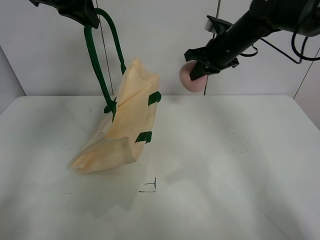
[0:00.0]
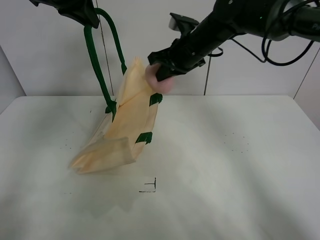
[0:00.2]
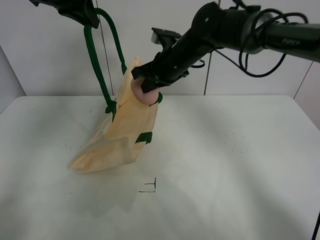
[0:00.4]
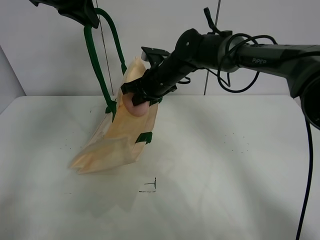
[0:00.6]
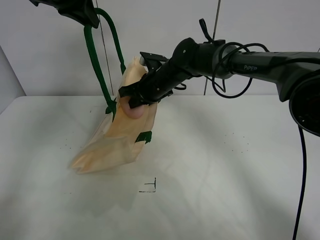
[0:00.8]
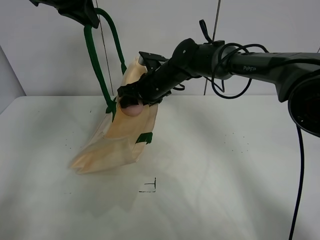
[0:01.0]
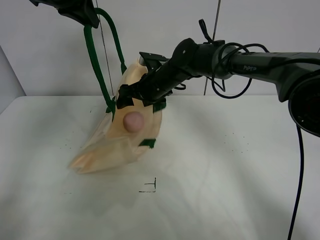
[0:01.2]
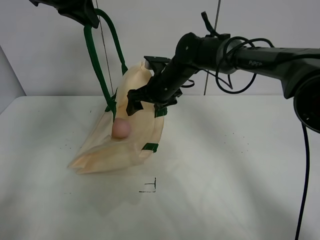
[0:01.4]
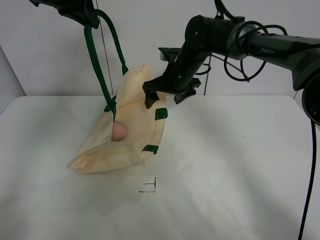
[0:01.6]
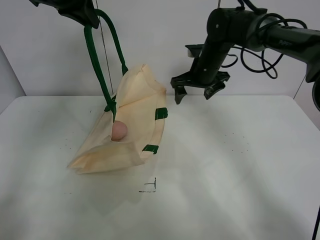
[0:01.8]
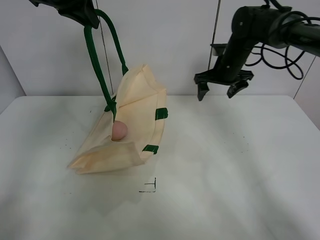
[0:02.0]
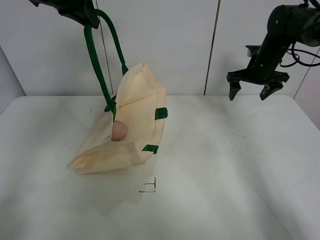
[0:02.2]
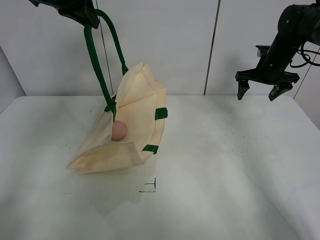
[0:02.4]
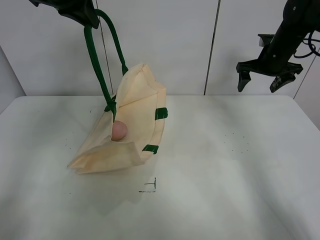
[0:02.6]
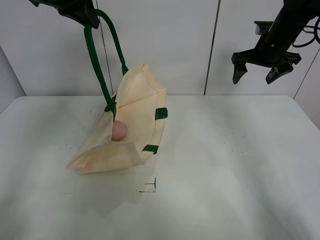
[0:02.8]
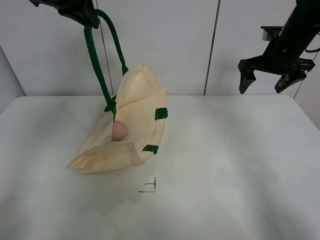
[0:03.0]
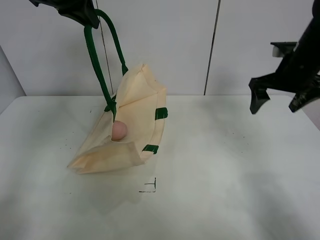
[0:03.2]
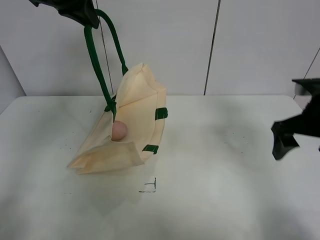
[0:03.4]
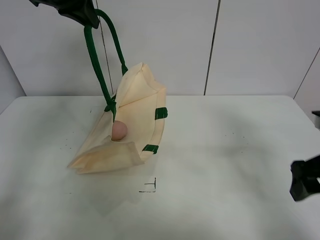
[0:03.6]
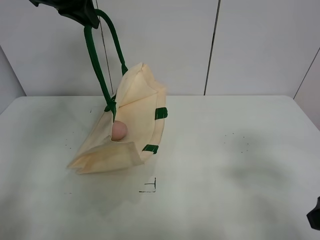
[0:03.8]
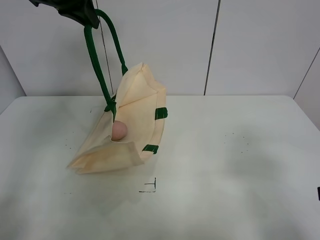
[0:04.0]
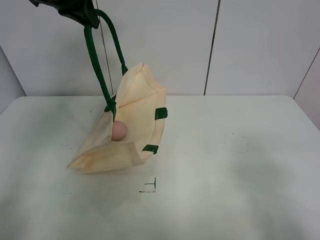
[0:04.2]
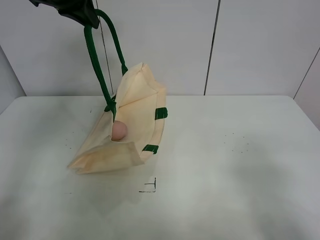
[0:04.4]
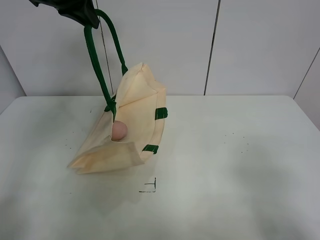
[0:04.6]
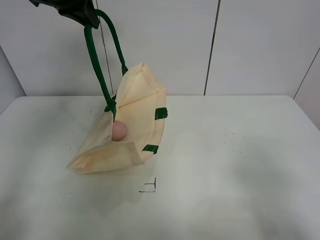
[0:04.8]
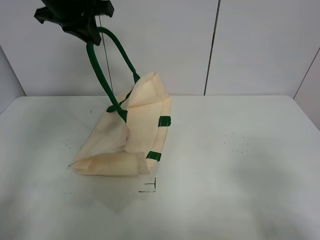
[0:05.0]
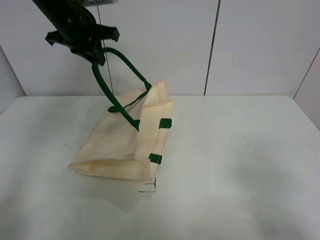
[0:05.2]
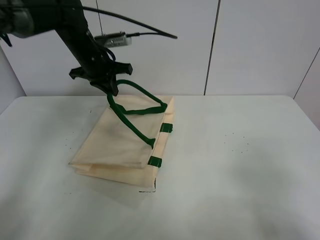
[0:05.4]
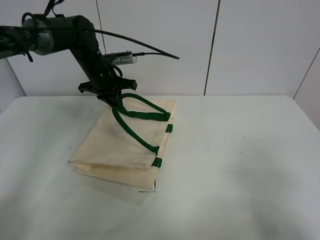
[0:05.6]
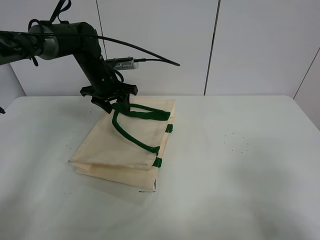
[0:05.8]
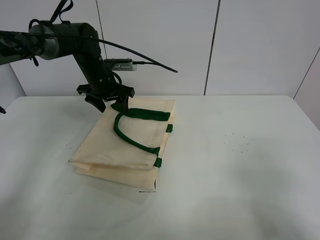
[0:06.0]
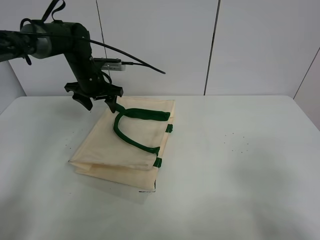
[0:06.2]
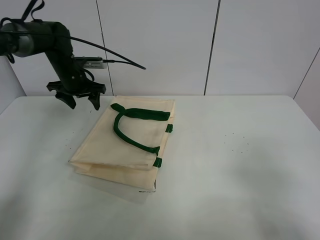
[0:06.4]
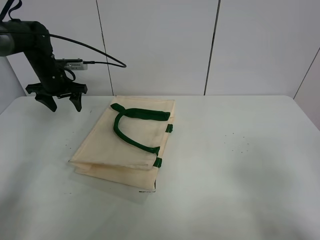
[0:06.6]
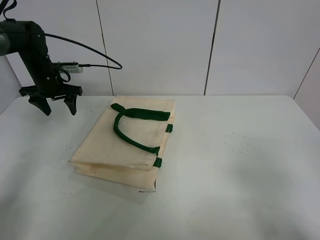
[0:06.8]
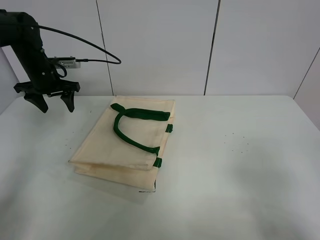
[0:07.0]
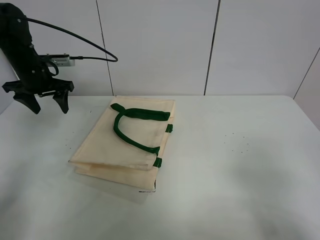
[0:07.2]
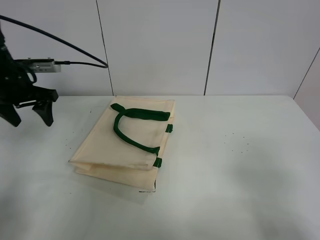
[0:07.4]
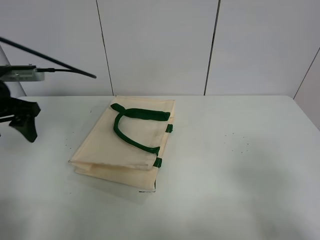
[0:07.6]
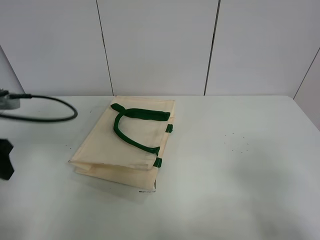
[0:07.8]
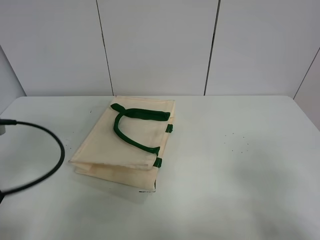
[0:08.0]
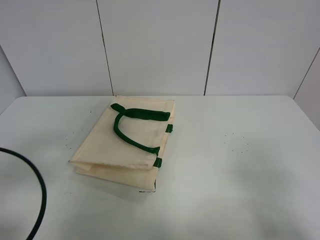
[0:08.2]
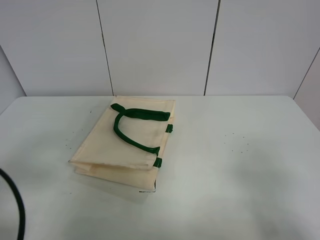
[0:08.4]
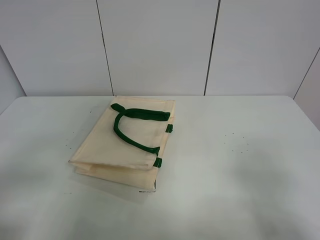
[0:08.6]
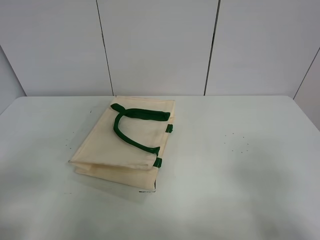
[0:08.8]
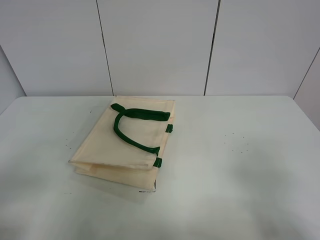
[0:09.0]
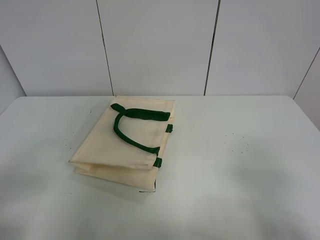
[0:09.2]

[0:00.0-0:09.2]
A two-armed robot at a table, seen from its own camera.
Task of the whole recording: open the white linen bag and put the peach in the bag.
Step, 0:00.0 to 0:01.4: Place the peach in the handbag with right gripper.
Step, 0:01.6 to 0:06.0: Put down the handbag with left gripper.
0:00.0 to 0:01.6: The right gripper travels to the left and downward by roughly 10 cm, and opens its fingers.
0:01.6 to 0:03.0: The right gripper shifts approximately 20 cm to the right.
0:03.0 to 0:04.6: The right gripper heads backward, covering roughly 40 cm.
0:04.6 to 0:06.2: The left gripper moves downward, roughly 20 cm, and opens its fingers.
0:06.2 to 0:07.6: The left gripper moves backward and to the left, roughly 20 cm.
0:07.6 to 0:09.2: The left gripper moves backward, approximately 25 cm.
